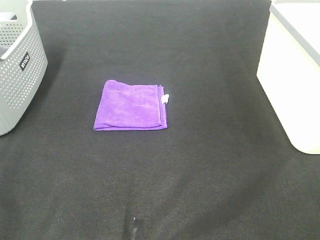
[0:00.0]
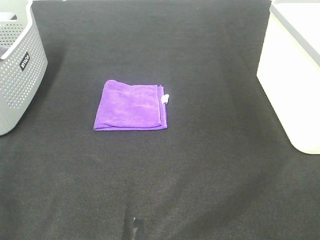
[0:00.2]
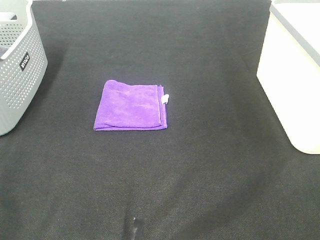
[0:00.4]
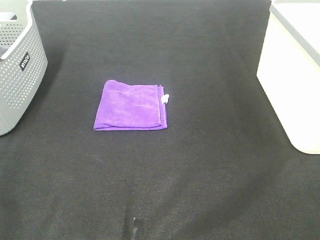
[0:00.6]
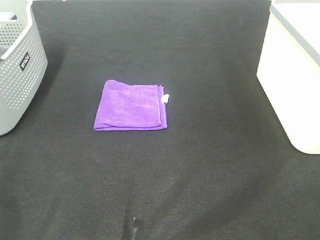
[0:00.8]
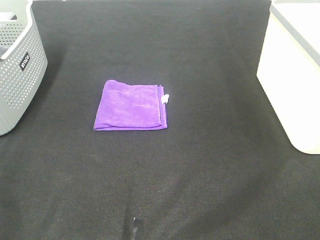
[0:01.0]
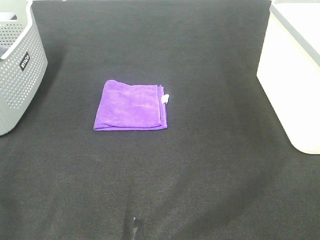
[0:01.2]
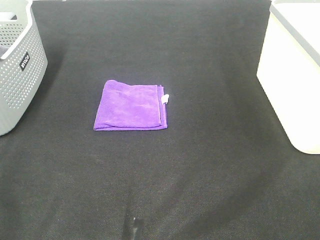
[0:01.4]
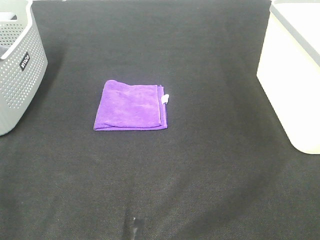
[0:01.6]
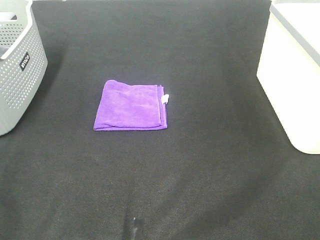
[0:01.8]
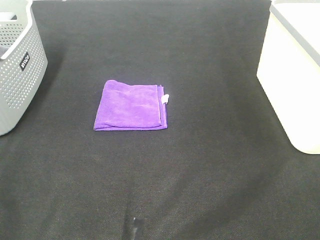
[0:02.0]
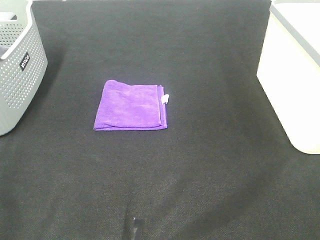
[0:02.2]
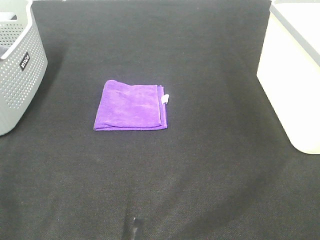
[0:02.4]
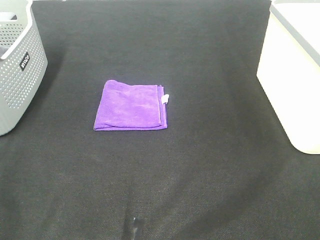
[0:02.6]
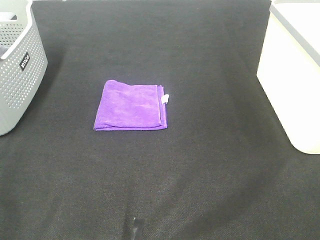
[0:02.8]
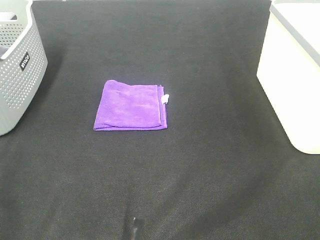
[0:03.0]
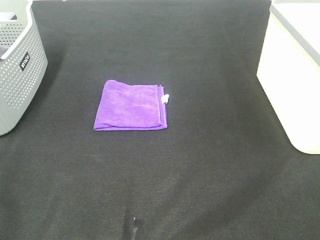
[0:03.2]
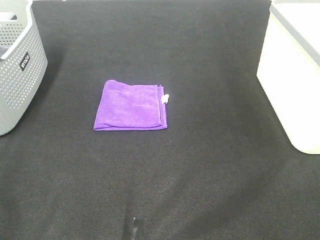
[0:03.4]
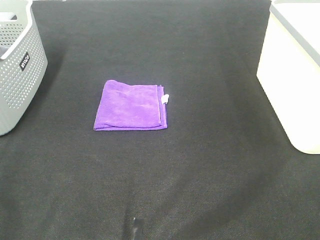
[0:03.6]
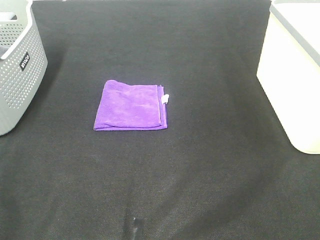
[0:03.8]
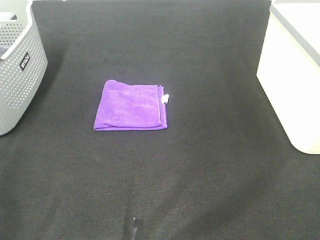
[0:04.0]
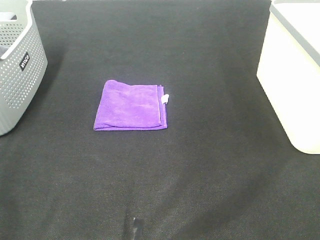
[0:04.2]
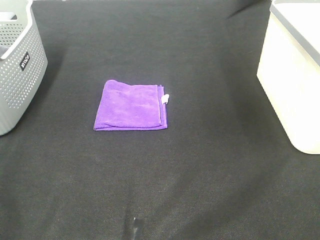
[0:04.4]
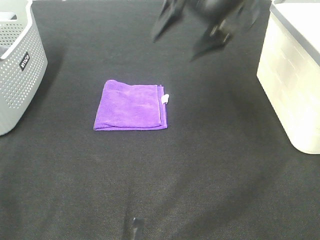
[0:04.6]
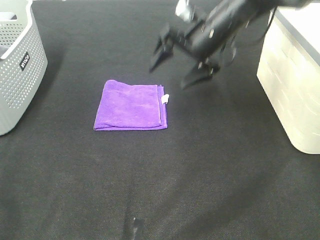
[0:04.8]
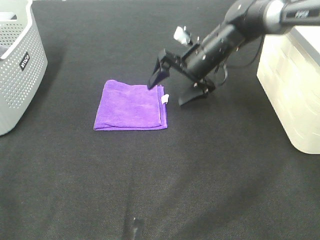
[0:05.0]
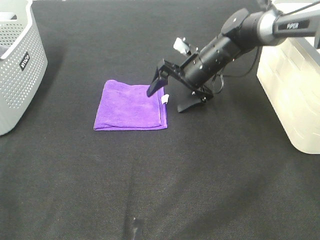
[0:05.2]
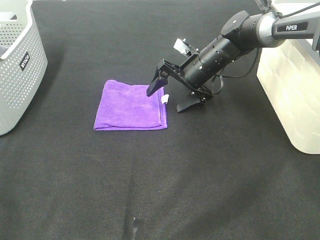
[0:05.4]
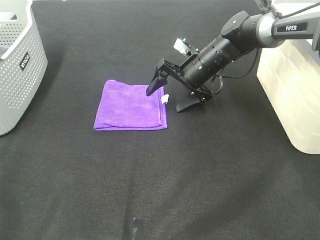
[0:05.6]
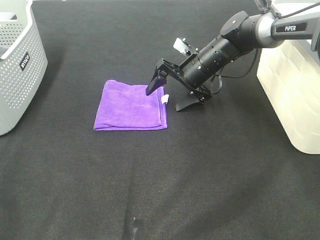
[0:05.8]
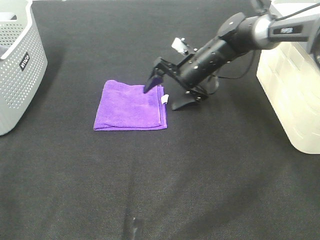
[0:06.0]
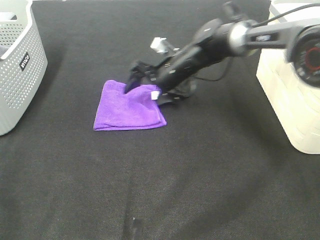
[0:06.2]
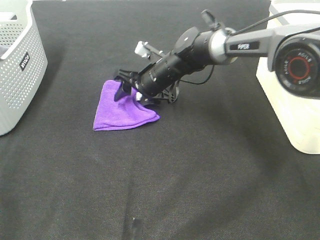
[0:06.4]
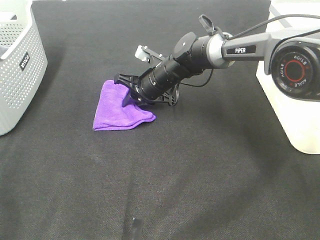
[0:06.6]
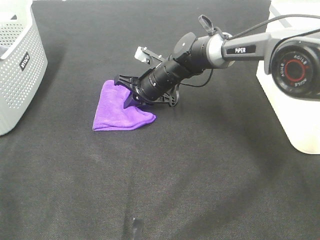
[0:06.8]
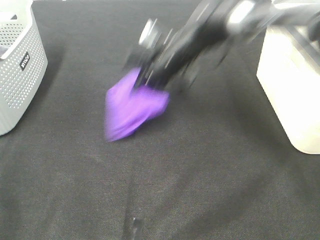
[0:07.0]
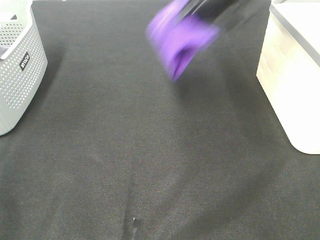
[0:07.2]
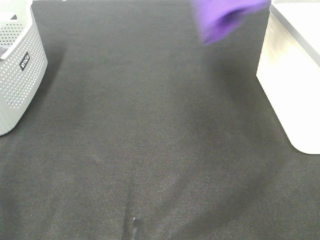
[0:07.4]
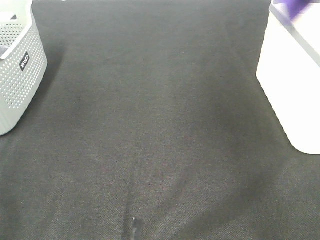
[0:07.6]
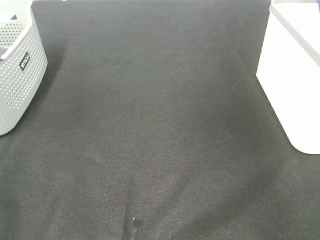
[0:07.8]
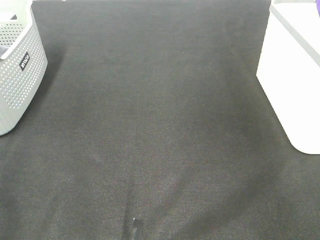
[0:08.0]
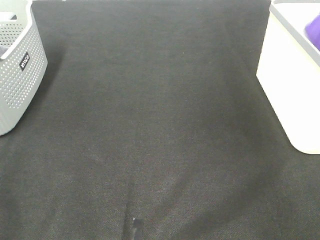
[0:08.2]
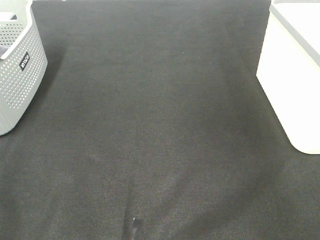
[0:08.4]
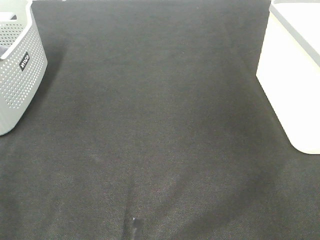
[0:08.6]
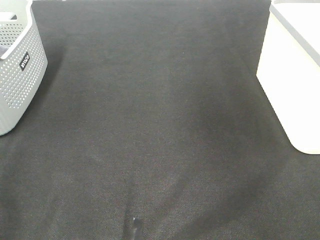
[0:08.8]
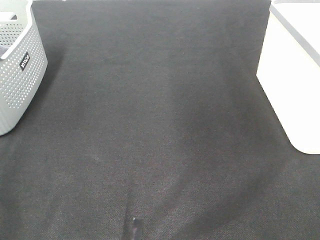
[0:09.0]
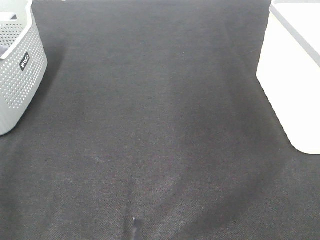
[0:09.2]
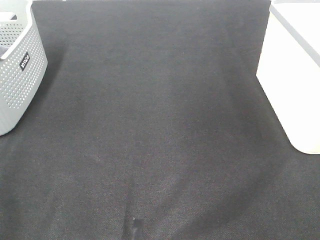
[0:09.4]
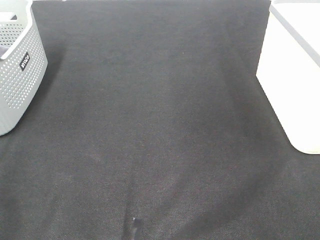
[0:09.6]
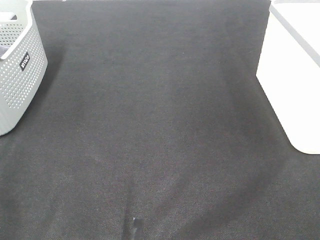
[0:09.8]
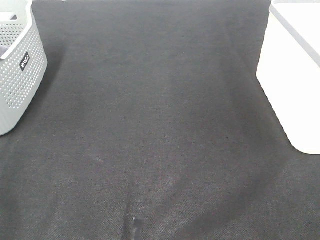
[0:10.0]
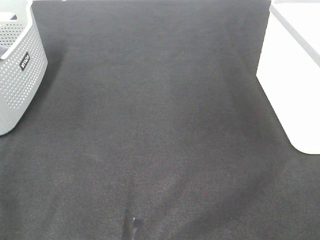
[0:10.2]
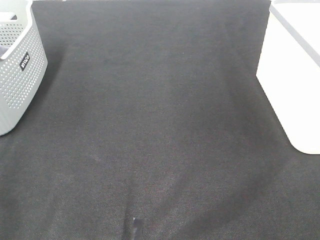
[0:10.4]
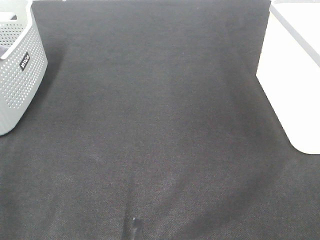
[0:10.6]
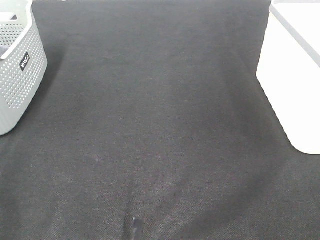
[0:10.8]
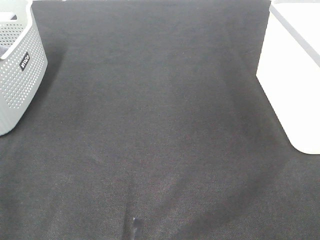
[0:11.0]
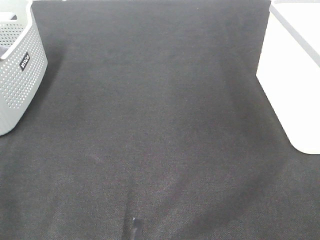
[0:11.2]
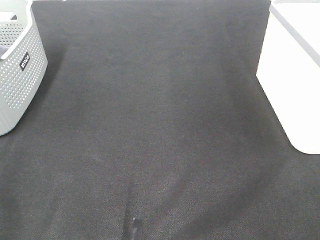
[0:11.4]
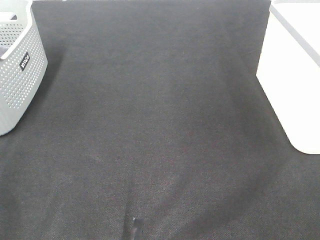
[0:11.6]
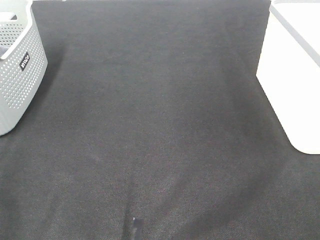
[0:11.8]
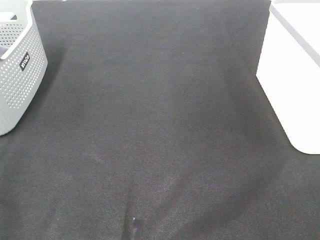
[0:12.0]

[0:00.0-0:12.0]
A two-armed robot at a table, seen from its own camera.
Step, 0:00.0 to 0:06.6: Right hand: grab the folded purple towel.
Step, 0:06.8 to 0:08.4: Right hand: place the purple towel in right basket.
0:00.0 to 0:03.0: Both grippers stay put.
0:03.0 to 0:04.4: The right gripper goes some 40 cm forward and to the left.
0:04.4 to 0:06.0: The right gripper shifts some 25 cm downward.
0:06.0 to 0:07.6: The right gripper travels upward and to the right by roughly 40 cm, and closes.
0:07.6 to 0:09.0: The right gripper moves backward and to the left, roughly 10 cm, and opens.
0:10.4 to 0:12.0: Neither gripper changes place.

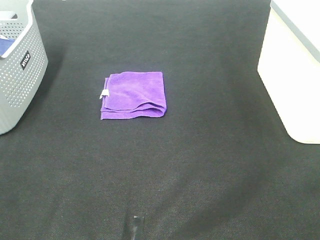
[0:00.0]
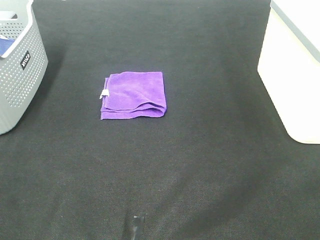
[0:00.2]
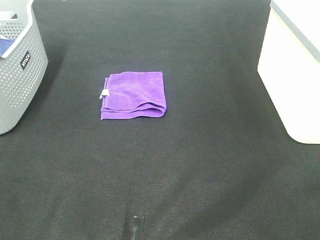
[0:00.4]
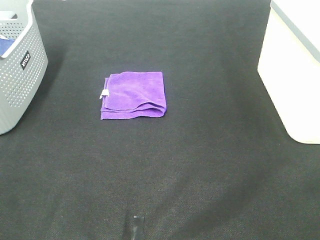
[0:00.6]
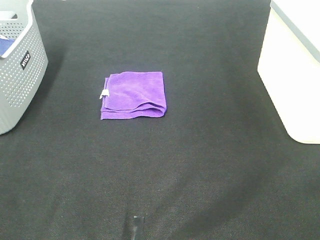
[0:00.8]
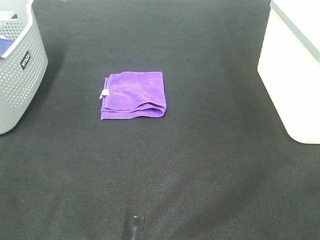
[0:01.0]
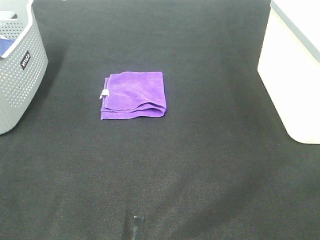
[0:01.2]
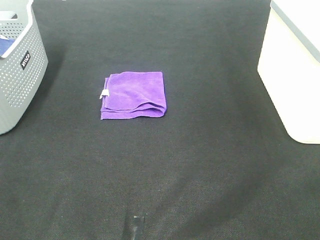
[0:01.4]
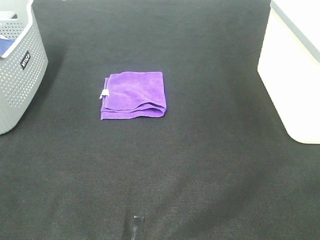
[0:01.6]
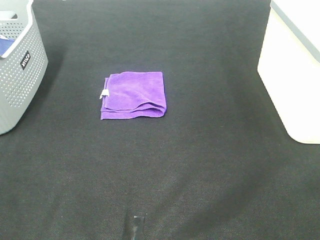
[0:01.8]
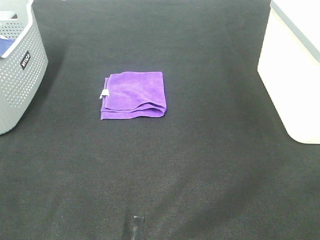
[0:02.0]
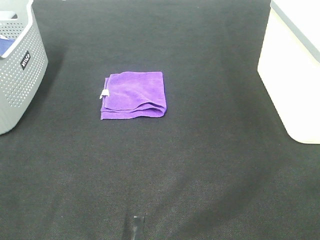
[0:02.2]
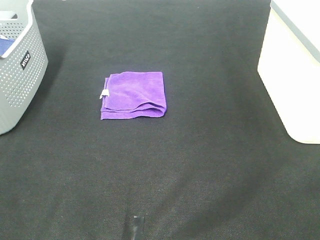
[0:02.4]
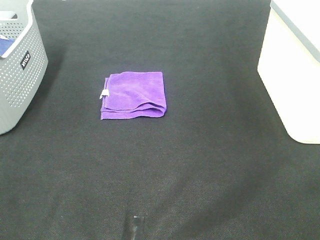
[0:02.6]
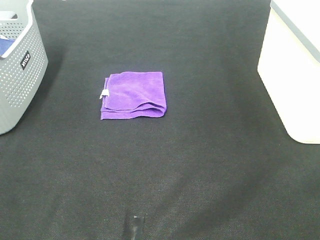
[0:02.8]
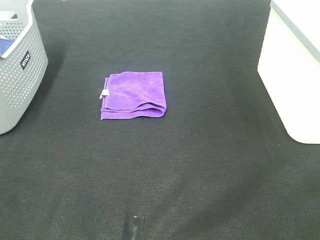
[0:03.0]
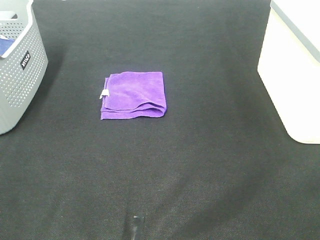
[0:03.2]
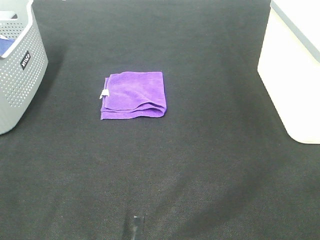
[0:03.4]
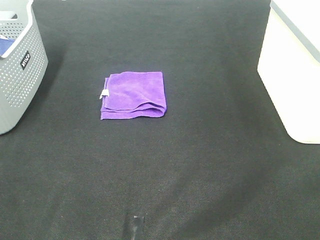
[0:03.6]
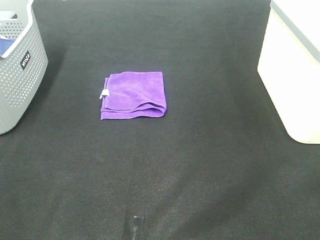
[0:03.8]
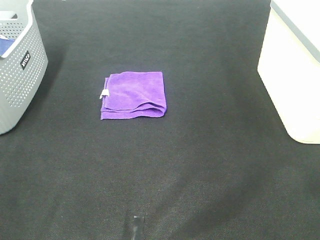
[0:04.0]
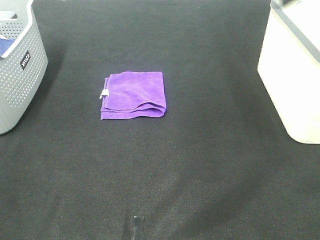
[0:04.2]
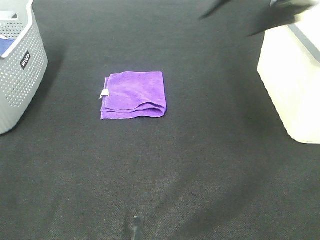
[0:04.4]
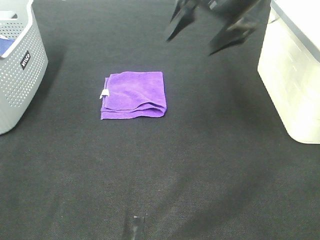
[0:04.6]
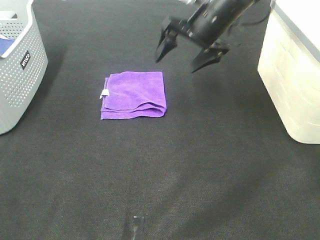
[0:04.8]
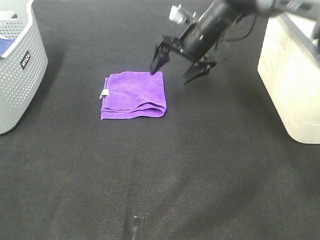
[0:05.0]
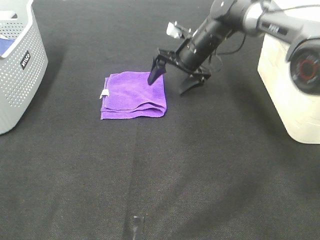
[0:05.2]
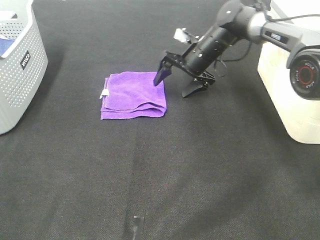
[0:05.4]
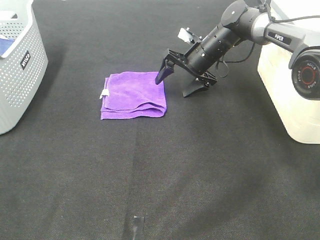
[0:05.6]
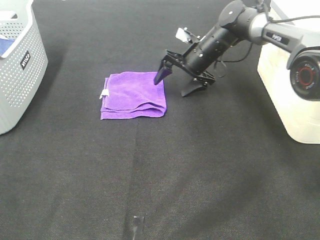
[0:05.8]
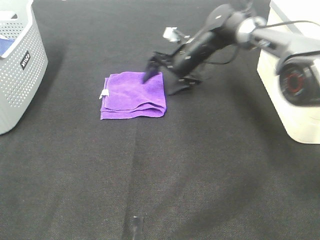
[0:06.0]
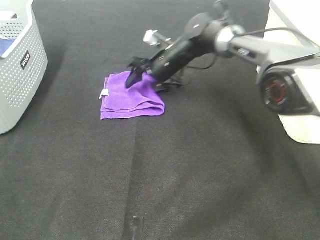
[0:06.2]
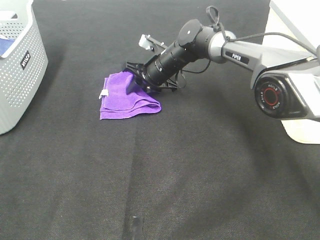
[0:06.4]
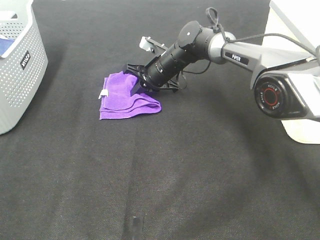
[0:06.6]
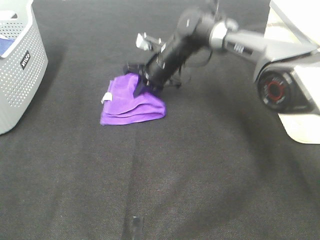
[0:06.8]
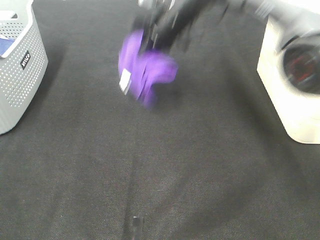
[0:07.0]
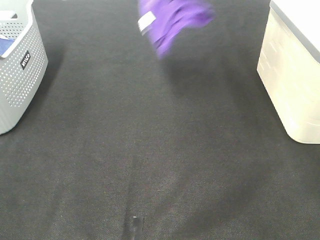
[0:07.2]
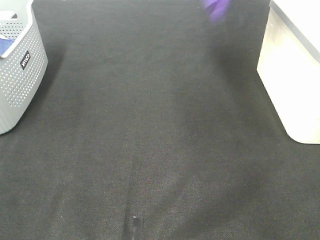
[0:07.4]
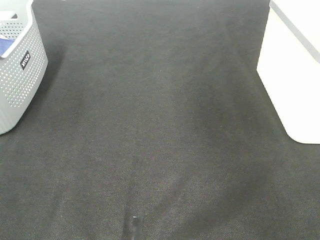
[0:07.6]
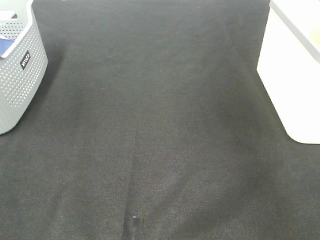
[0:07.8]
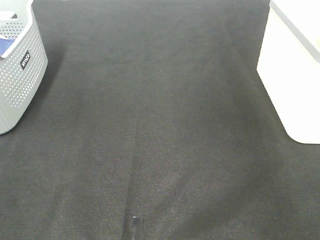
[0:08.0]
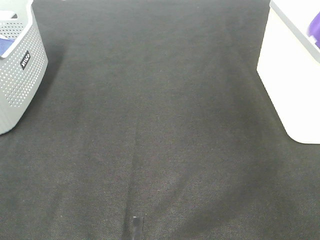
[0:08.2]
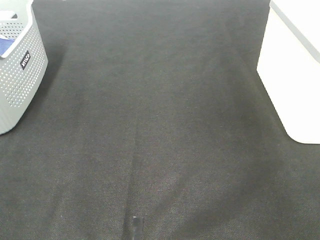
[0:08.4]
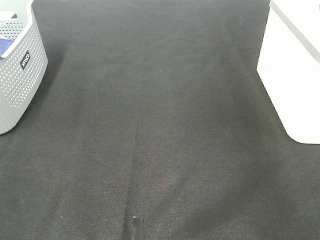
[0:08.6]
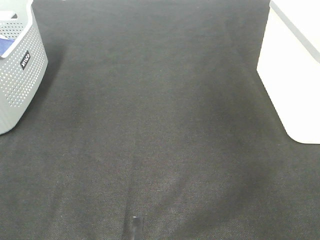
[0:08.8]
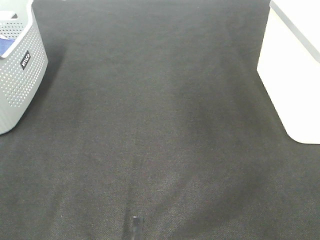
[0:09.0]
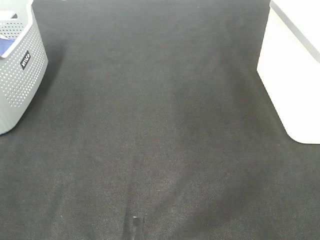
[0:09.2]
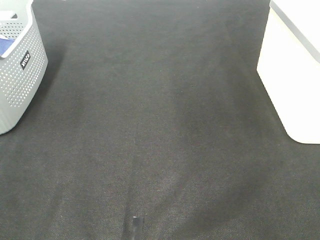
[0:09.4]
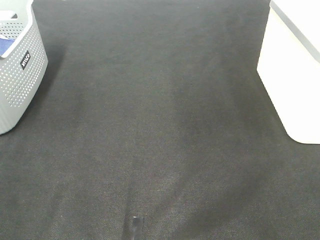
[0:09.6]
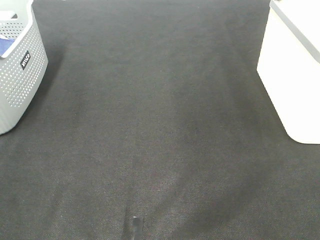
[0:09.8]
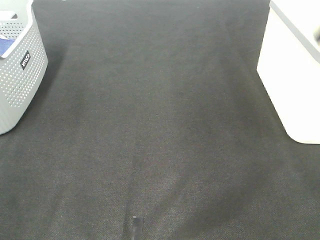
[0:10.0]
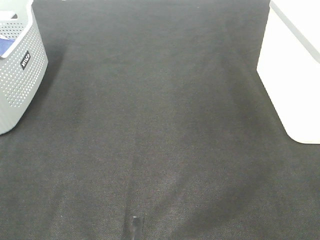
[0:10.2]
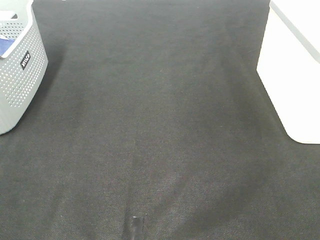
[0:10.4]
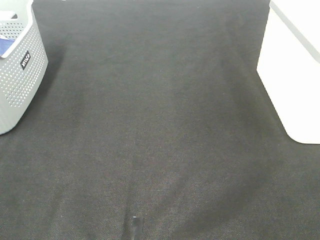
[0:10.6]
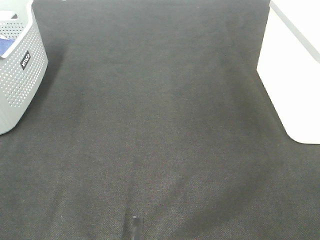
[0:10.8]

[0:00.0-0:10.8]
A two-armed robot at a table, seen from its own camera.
Step, 0:00.0 to 0:06.6: Right hand: grab the folded purple towel.
Step, 0:06.8 to 0:08.2: Right hand: place the purple towel in right basket.
0:00.0 to 0:03.0: Both grippers stay about where they are.
0:03.0 to 0:04.6: The right gripper travels forward by about 40 cm.
0:04.6 to 0:06.2: The right gripper moves downward, to the left and forward, roughly 20 cm, and closes its fingers.
0:06.2 to 0:07.8: The right gripper heads to the right and upward, covering approximately 50 cm, and closes up.
